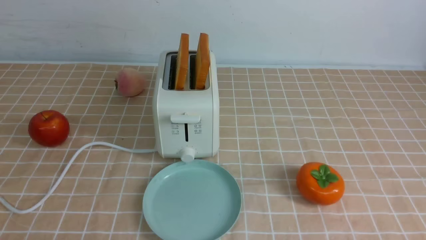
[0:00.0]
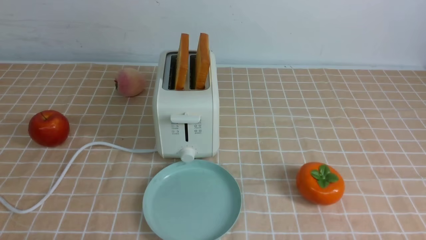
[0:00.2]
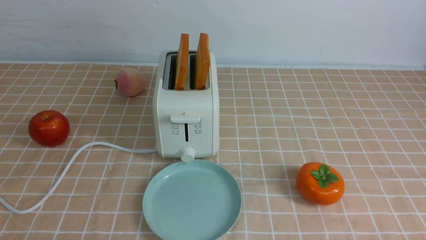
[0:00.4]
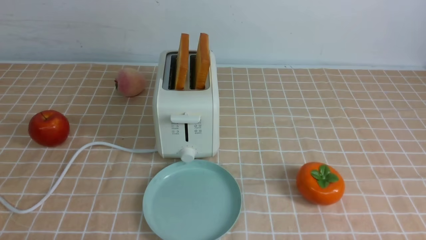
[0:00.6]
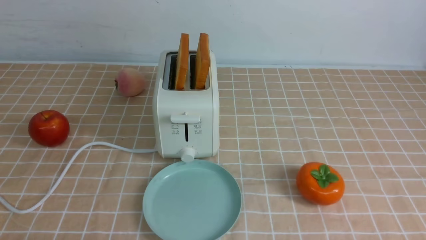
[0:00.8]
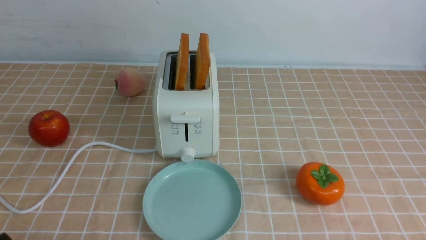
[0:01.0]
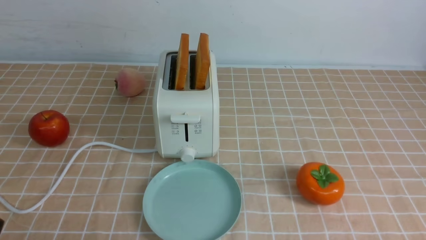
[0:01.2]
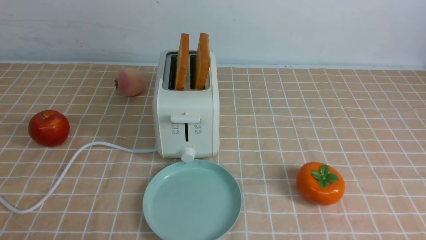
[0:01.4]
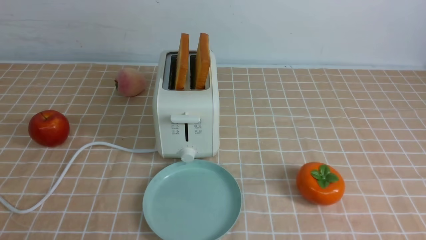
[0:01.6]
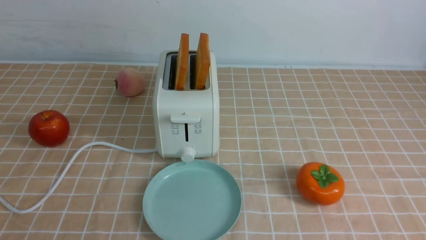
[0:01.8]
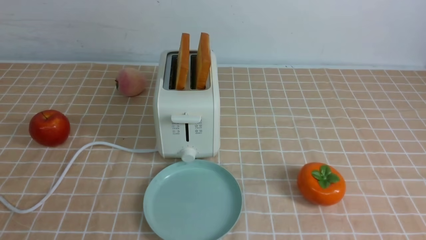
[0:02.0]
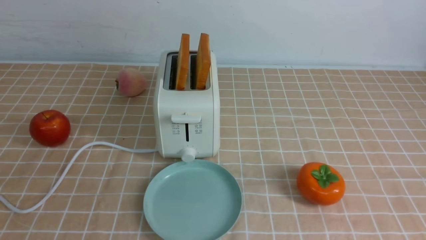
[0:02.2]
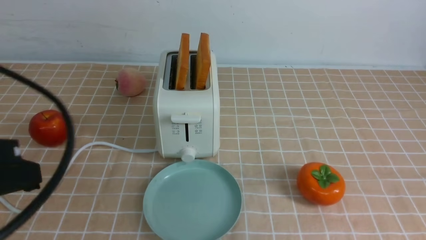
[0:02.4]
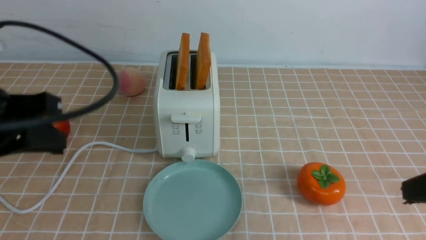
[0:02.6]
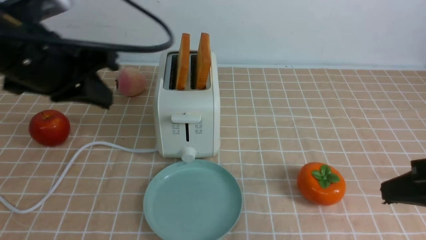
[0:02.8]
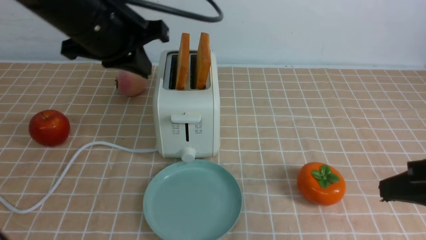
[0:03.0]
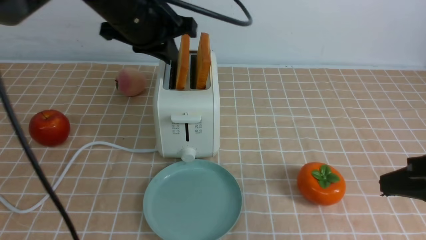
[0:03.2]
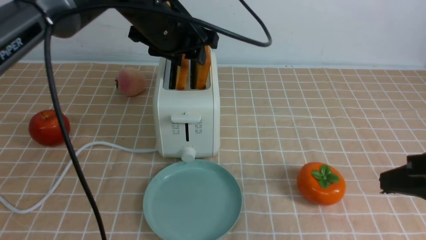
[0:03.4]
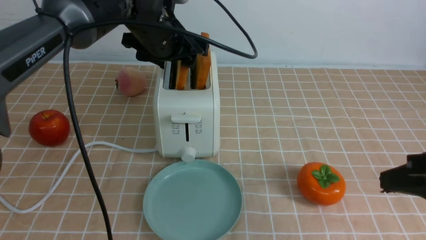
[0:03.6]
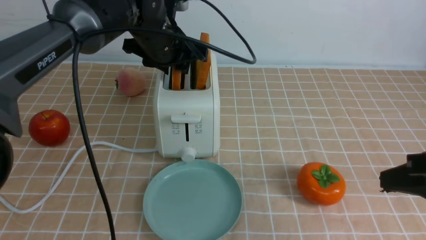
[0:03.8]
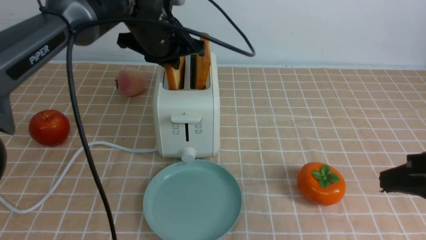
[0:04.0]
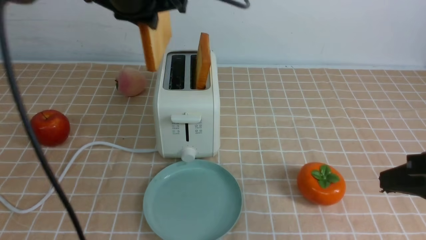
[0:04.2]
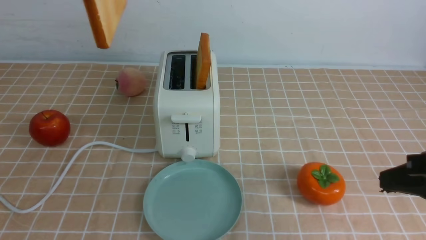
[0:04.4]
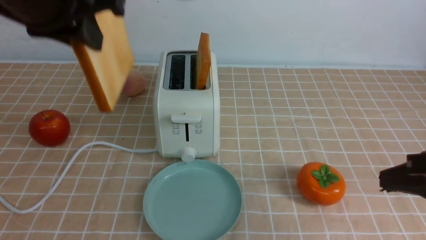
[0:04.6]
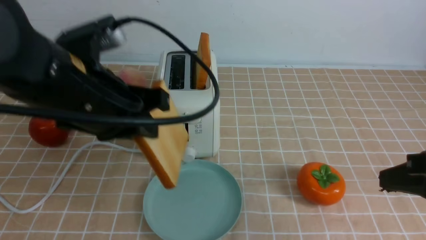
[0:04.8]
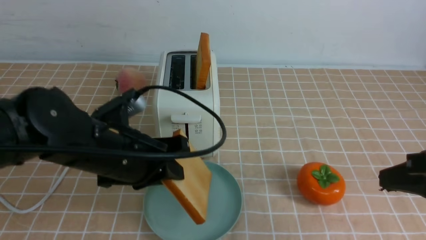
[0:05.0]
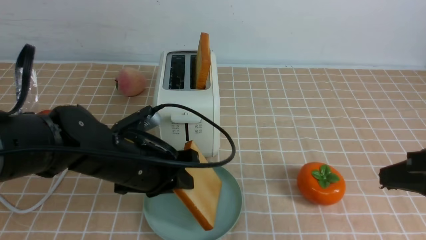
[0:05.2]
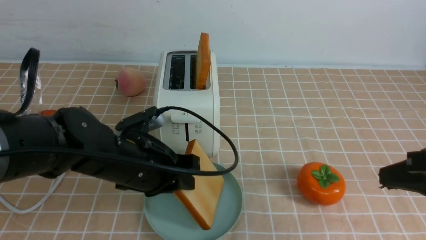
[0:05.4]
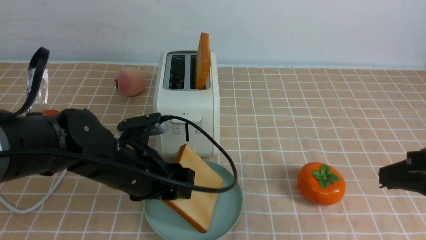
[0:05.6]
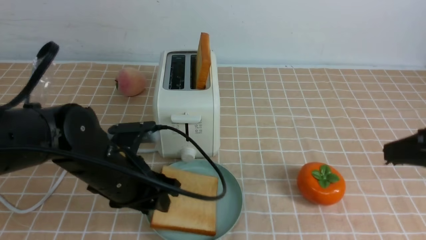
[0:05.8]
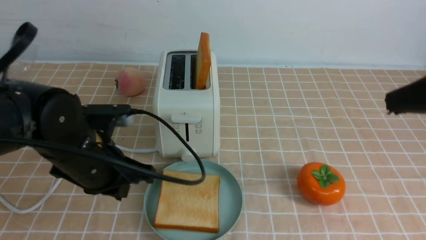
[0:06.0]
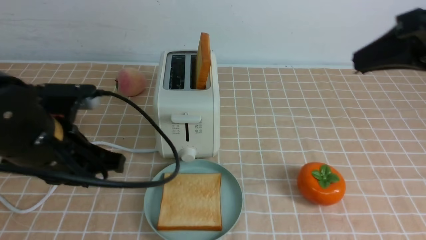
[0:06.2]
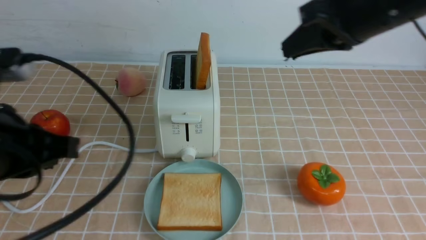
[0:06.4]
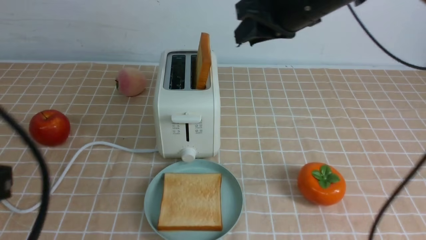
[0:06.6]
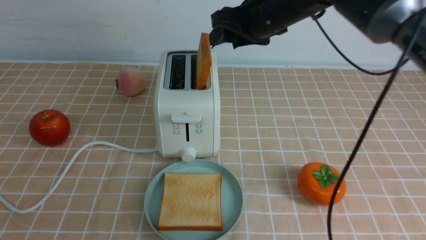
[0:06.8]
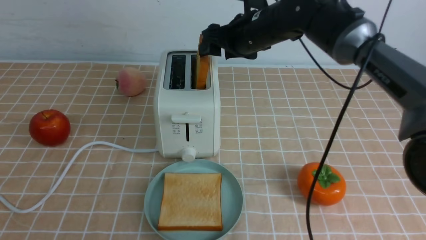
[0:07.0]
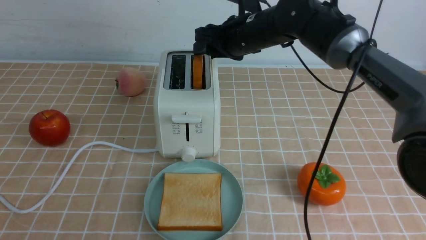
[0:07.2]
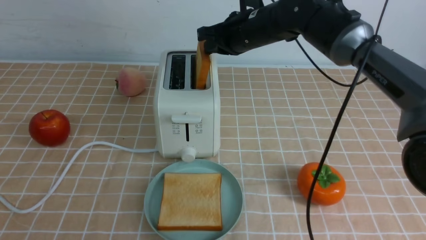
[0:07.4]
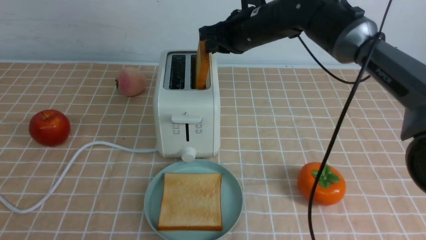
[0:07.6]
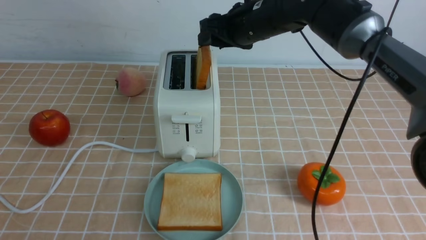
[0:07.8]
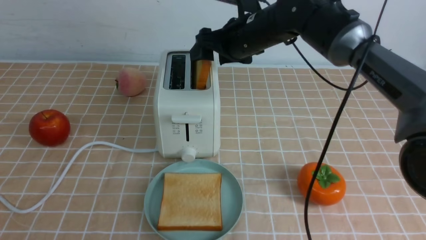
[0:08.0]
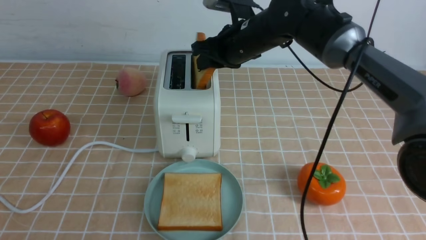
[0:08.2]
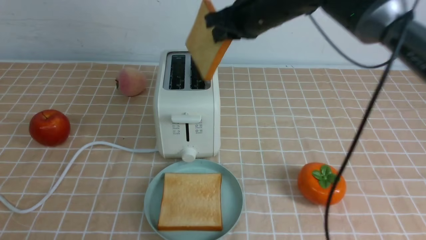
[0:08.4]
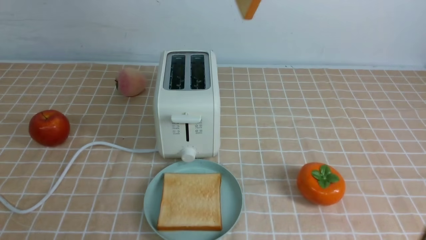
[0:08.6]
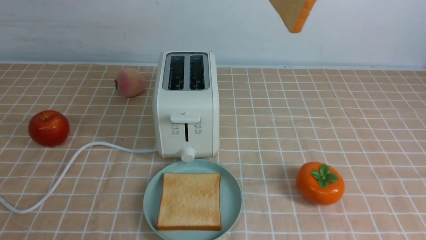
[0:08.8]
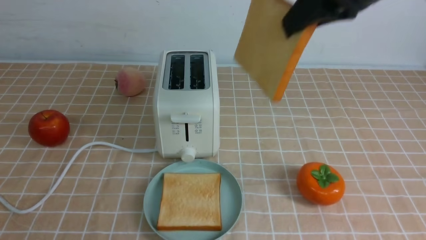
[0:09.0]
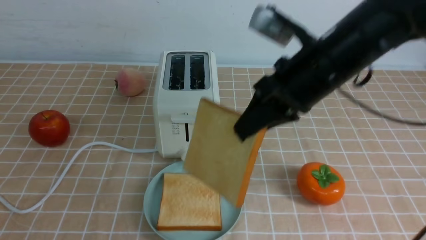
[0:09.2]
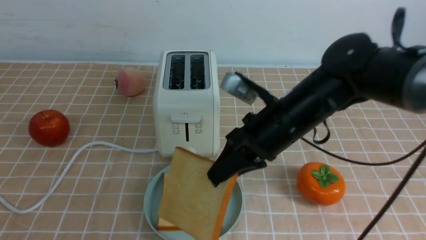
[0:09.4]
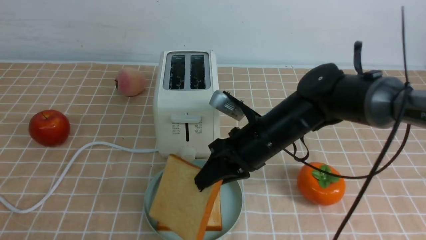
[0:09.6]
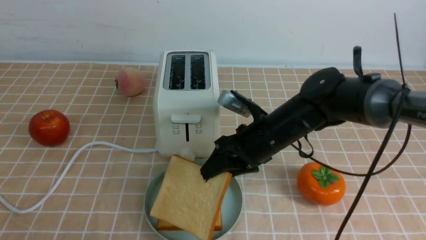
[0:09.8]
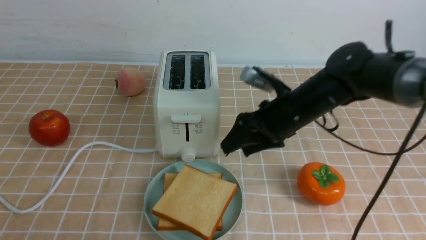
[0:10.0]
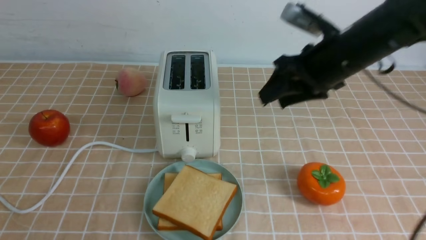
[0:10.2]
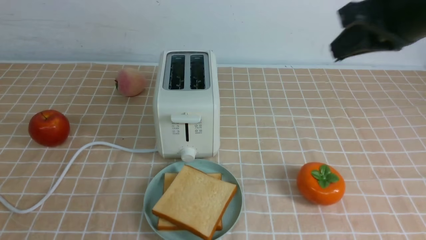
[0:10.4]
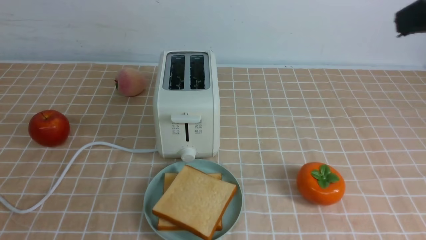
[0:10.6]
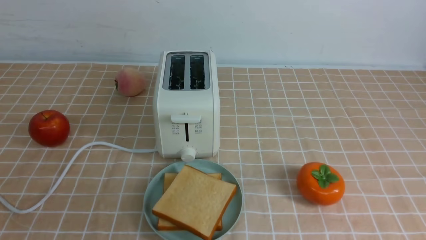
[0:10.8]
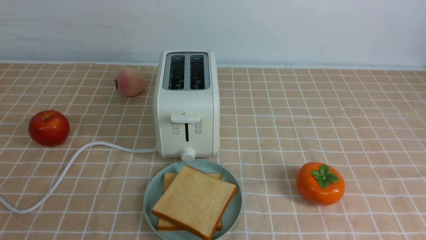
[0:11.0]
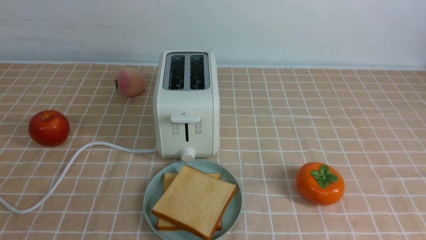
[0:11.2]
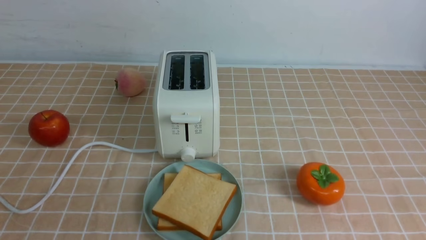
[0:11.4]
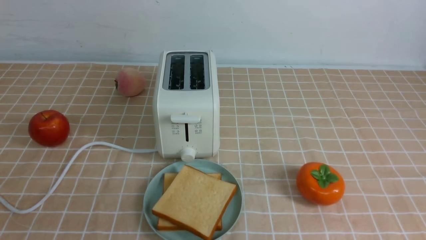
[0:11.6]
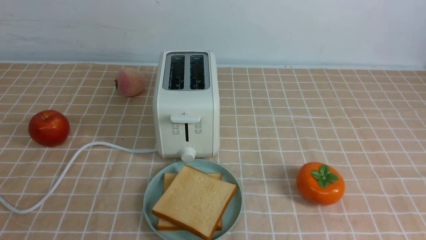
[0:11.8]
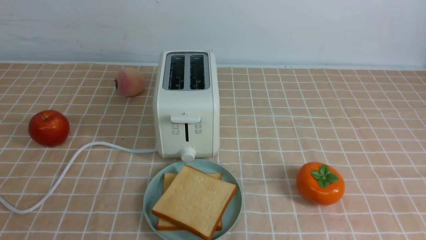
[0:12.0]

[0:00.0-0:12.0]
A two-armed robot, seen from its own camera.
Task of the whole recording: take toasted bread from bread machine on light coffee tablecloth place on plate.
Step, 0:00.0 to 0:04.0: use the left arm to take out a slice of bread.
Step, 0:04.2 to 0:05.8: use the left arm to put a slice of bread into the empty plate.
Step, 0:06.0 to 0:08.2: use the right arm to take out a slice of bread.
Step, 0:08.4 to 0:10.0: use the right arm to put a slice of bread into the plate.
0:01.6 to 0:03.0: The left gripper shifts approximately 30 cm forward and upward, and closes. Meanwhile the right gripper goes some 15 cm upward and forward, and closes up.
0:03.0 to 0:04.4: The left gripper moves upward, roughly 5 cm, and opens, then closes once more.
0:04.4 to 0:06.0: The left gripper travels downward by about 20 cm. The right gripper moves upward, roughly 5 cm.
0:06.0 to 0:07.6: The left gripper shifts some 25 cm backward and to the left, and closes; the right gripper travels forward and to the left by some 35 cm, and opens, then closes again.
0:07.6 to 0:09.0: The right gripper heads backward, upward and to the right, covering approximately 20 cm, and opens, then closes once more.
0:09.0 to 0:10.4: The right gripper moves some 25 cm downward and comes back, and opens, then closes once more.
0:10.4 to 0:12.0: The right gripper travels backward, downward and to the right by approximately 30 cm.

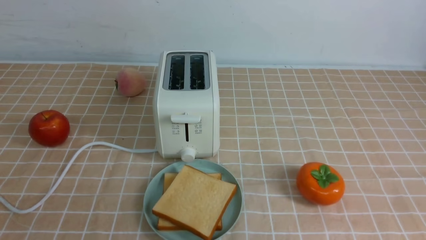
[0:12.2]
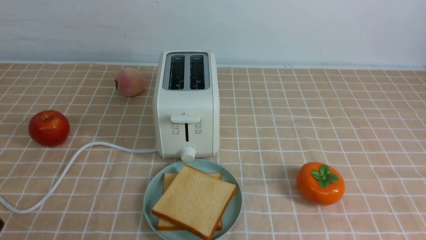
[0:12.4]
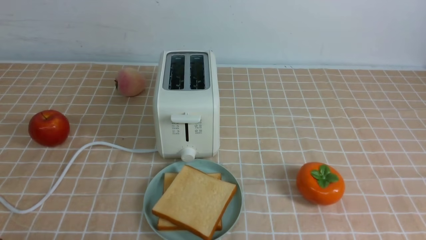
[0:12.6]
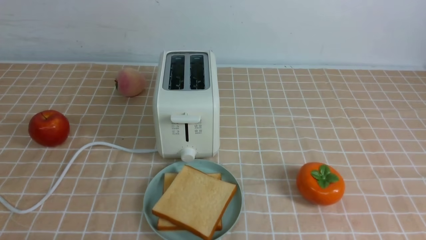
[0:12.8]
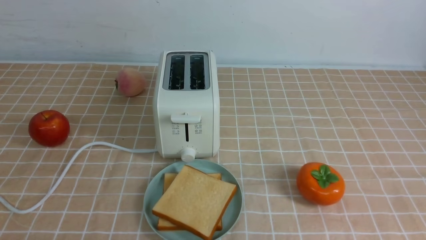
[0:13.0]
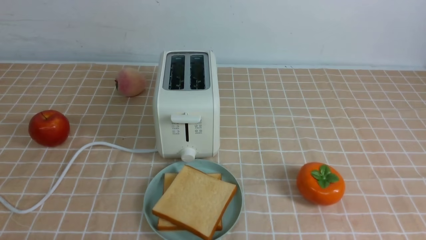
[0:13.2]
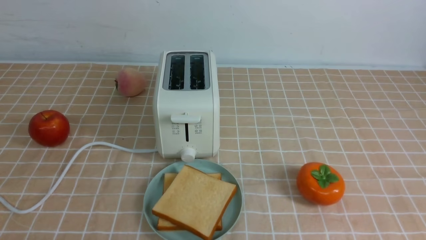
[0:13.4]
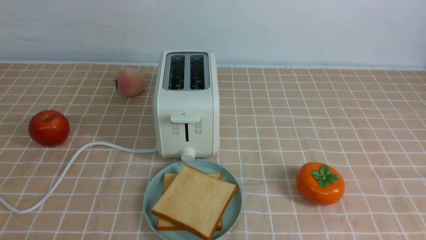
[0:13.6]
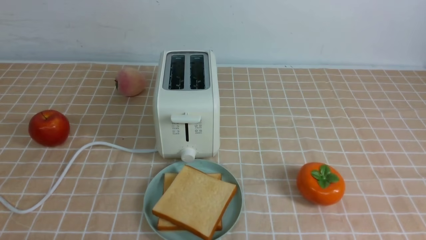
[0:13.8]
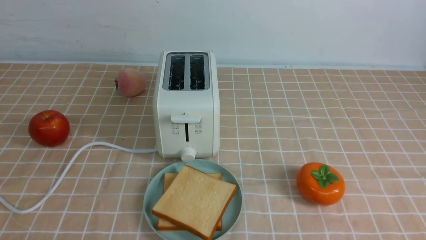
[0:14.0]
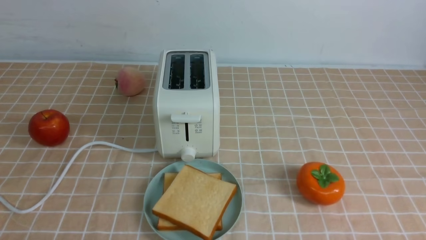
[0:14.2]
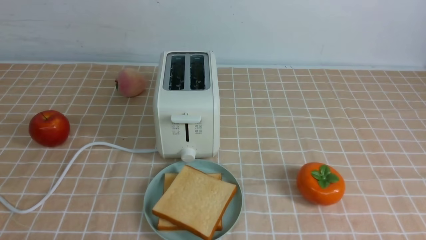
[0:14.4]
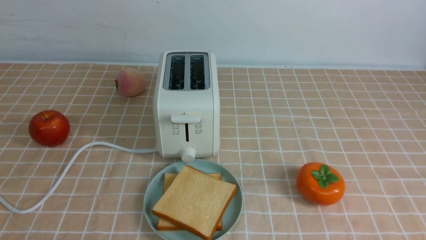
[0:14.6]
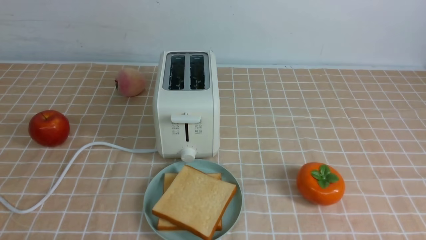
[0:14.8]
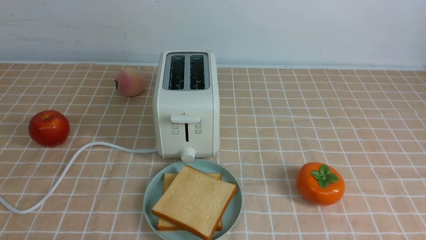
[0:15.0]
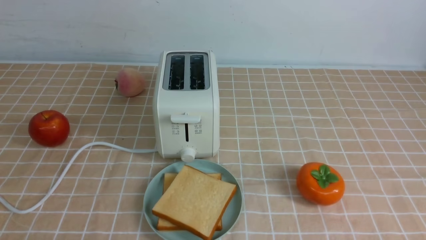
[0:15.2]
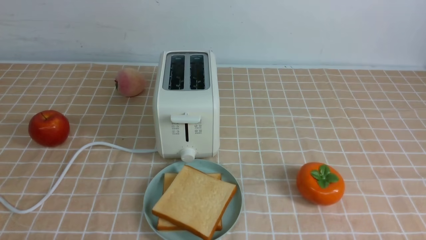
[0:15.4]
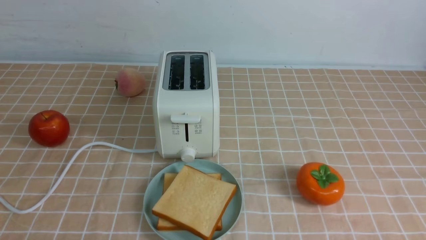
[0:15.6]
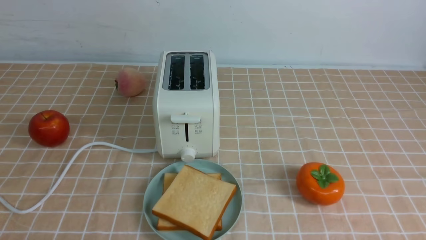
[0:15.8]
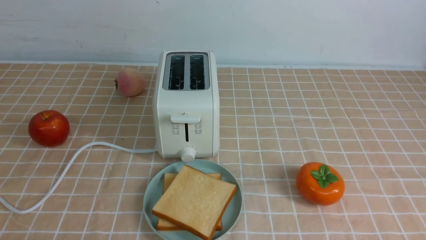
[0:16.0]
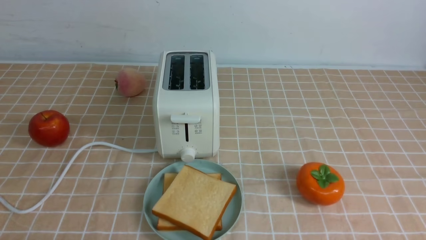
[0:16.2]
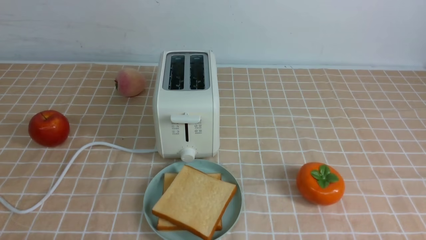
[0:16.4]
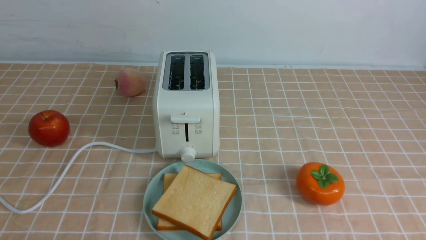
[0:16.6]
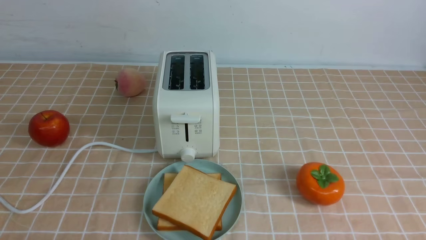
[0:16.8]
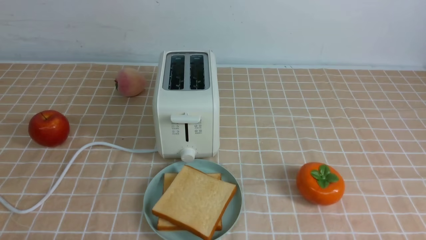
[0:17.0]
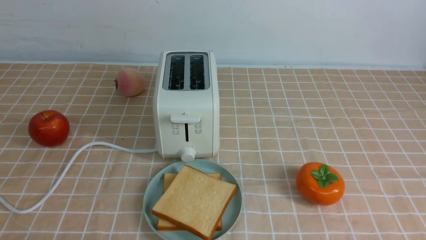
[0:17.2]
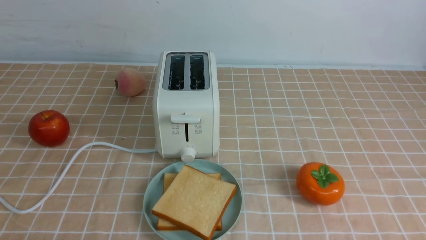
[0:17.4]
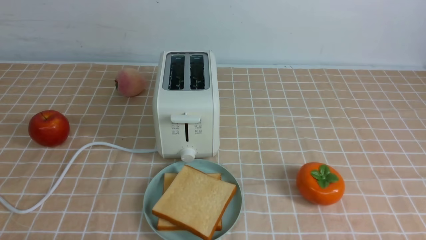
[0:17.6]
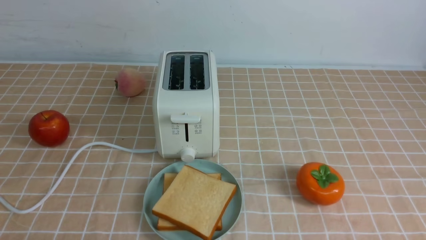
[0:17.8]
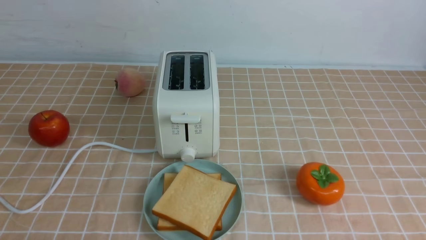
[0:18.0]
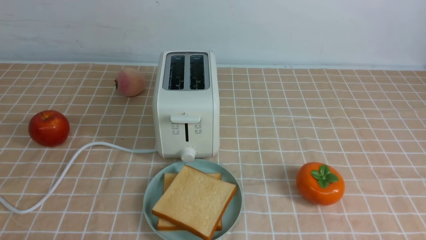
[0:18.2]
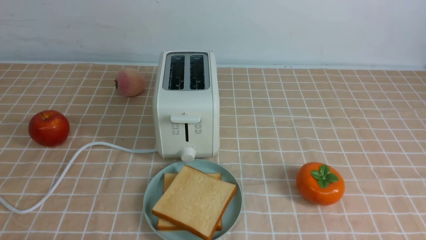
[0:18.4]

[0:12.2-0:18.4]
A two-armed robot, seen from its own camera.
Task of the whole recording: take toasted bread from bread machine on light coffee tablecloth place on plate.
0:16.8 to 0:18.4: Both grippers stay about where they are.
